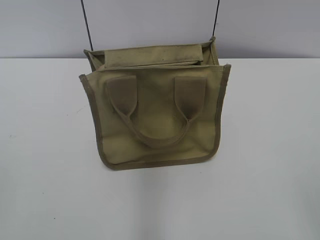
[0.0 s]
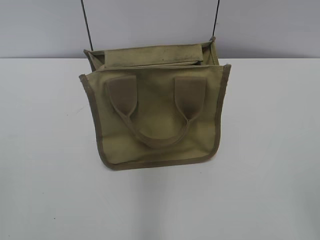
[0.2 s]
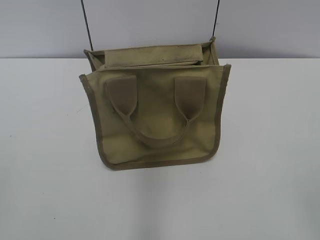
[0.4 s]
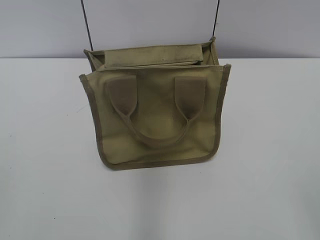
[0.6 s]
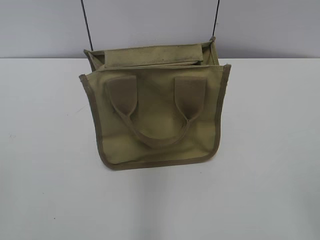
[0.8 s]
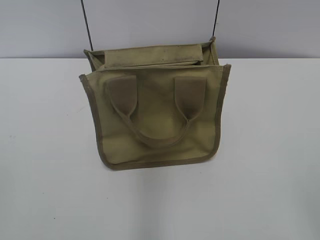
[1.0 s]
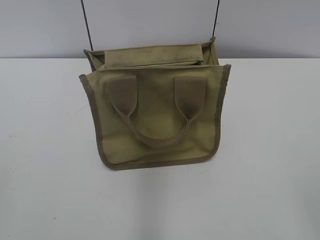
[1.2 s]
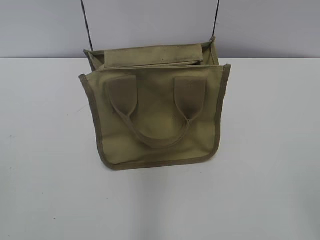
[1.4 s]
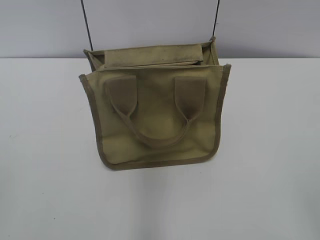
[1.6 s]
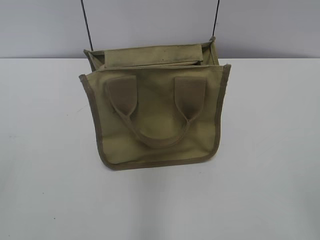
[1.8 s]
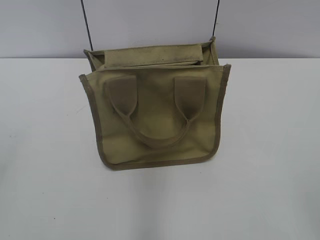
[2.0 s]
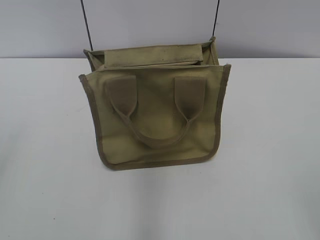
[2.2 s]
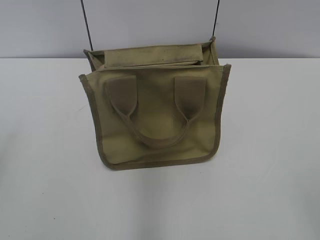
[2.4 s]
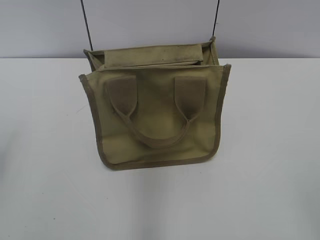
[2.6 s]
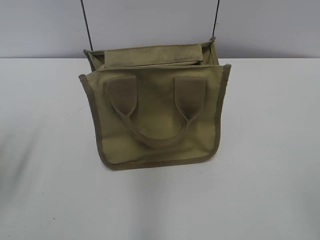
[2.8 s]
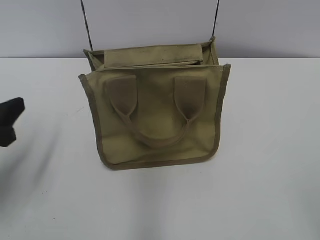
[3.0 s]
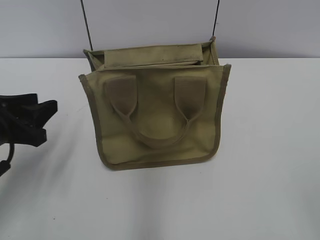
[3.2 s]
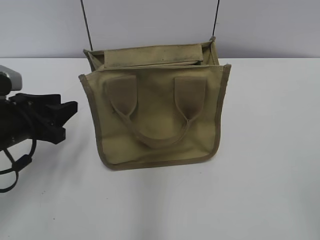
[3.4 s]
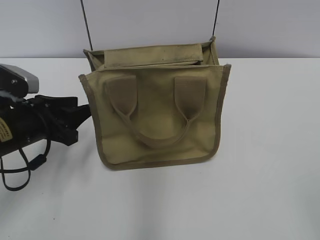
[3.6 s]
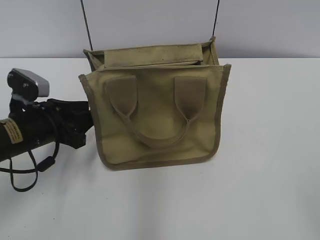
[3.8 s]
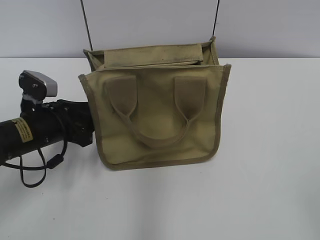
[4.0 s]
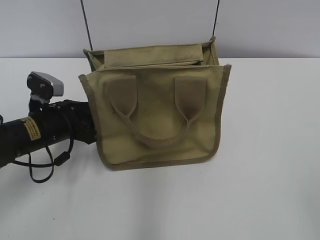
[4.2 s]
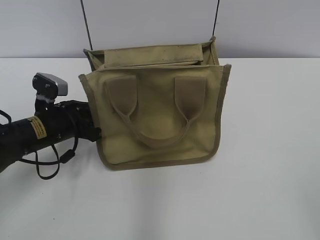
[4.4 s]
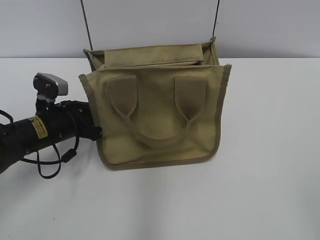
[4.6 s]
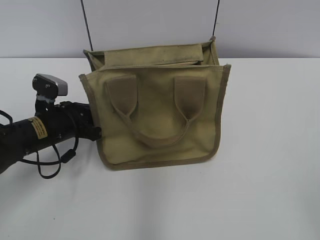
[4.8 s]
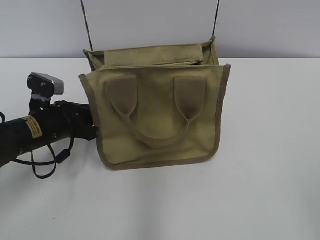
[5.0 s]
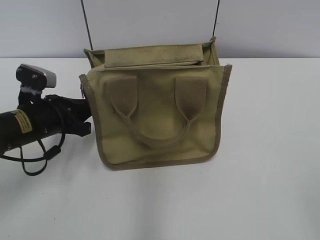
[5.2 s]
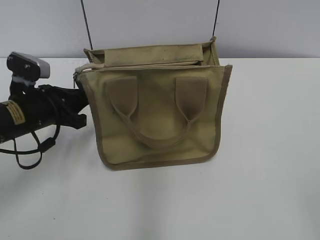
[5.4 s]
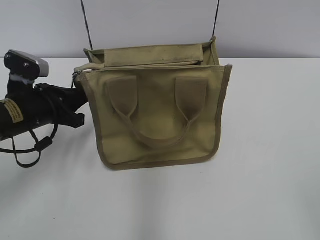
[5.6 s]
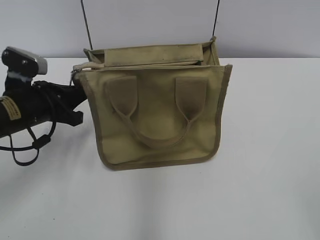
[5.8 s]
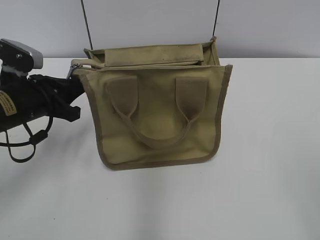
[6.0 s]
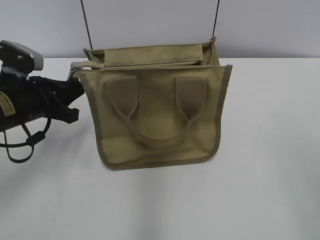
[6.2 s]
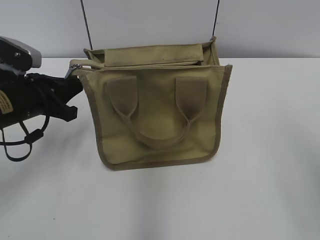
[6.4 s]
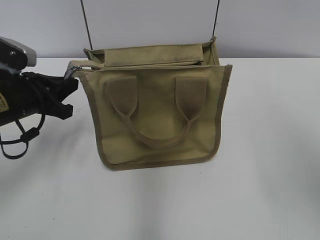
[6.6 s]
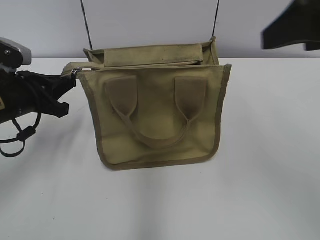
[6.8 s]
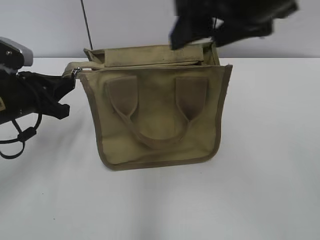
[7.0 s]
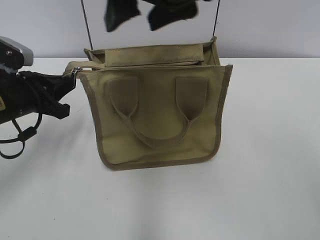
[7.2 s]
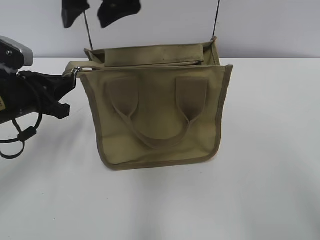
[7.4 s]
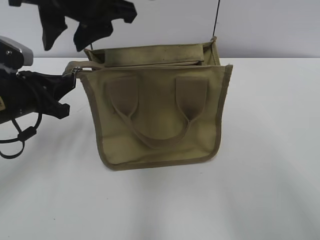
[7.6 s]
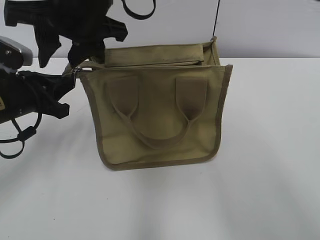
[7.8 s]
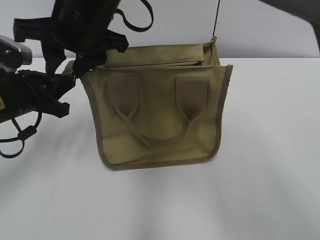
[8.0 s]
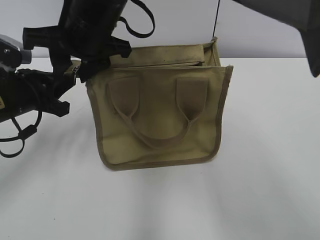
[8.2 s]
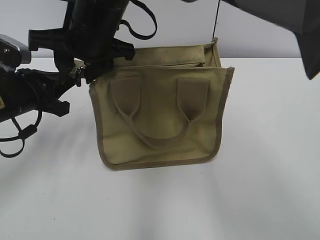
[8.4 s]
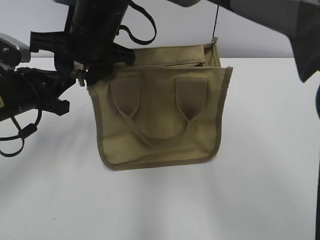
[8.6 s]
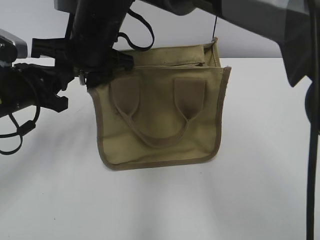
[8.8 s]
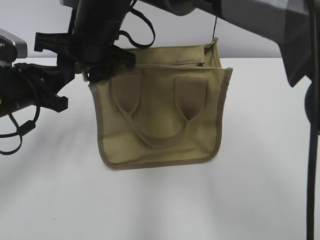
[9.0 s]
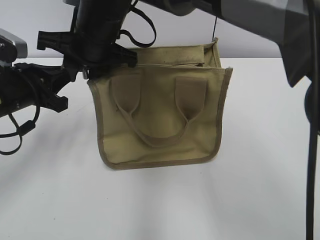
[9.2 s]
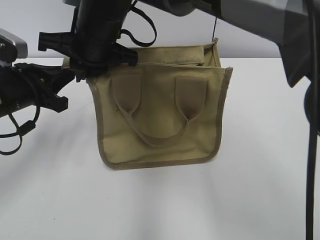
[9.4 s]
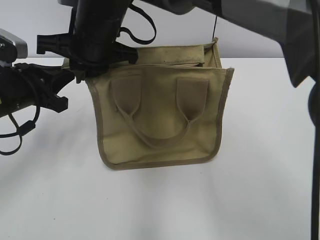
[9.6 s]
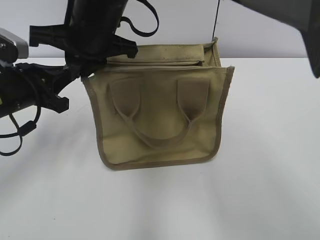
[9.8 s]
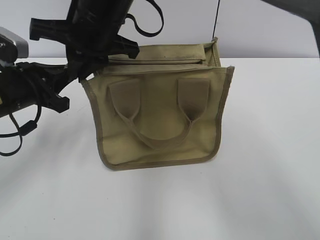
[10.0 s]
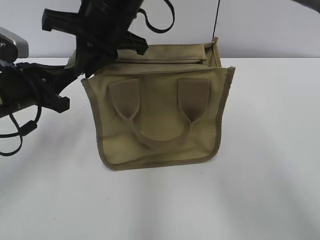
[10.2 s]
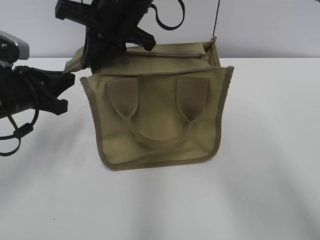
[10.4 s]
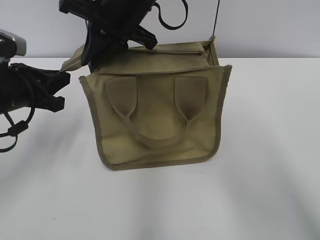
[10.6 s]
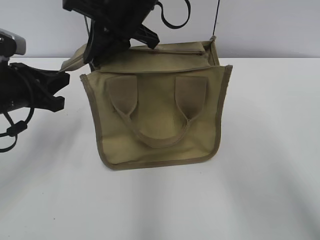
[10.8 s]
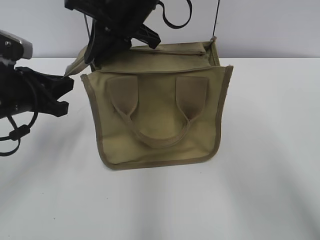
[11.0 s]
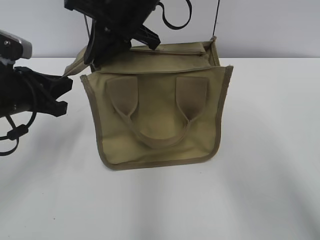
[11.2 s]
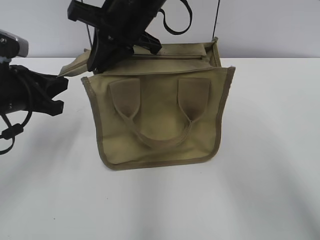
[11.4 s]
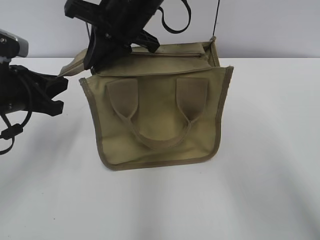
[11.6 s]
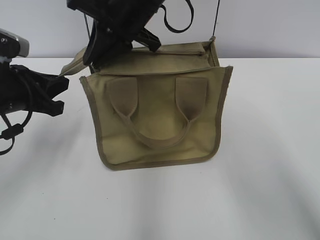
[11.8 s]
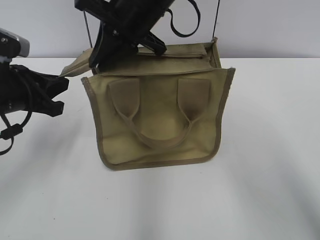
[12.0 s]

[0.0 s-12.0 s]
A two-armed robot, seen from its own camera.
1.6 to 3.0 s: The left gripper moves forward and downward, some 20 cm.
3.0 to 4.4 s: The left gripper goes roughly 15 cm forward, downward and to the right.
4.4 to 6.0 s: The left gripper is displaced upward by roughly 5 cm, and closes up.
6.0 to 7.6 s: The right gripper travels to the left and forward by about 50 cm, and closes.
7.6 to 9.0 s: The right gripper is displaced downward by some 10 cm.
9.0 to 10.4 s: The right gripper changes place by approximately 5 cm, and closes its fingers.
10.4 to 12.0 s: The grippers stay close to where they were, moving slightly.

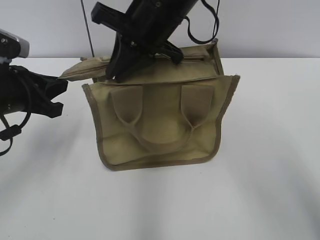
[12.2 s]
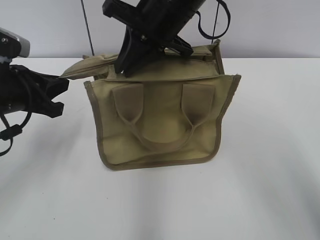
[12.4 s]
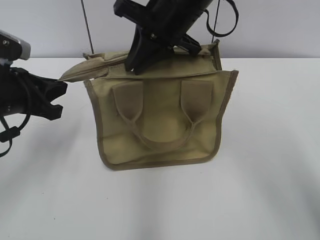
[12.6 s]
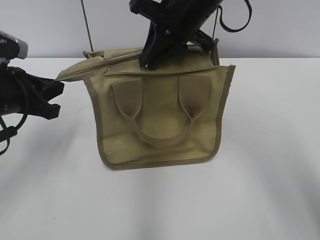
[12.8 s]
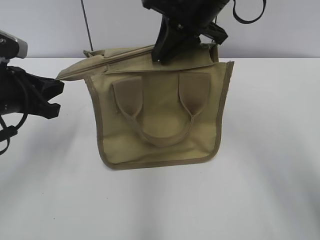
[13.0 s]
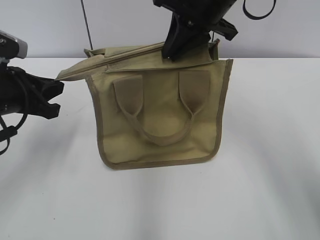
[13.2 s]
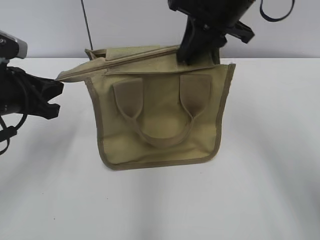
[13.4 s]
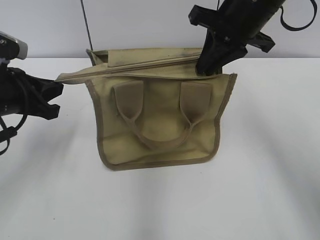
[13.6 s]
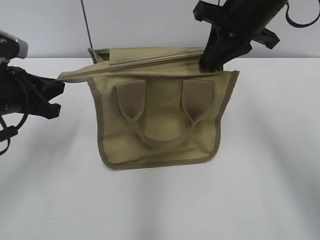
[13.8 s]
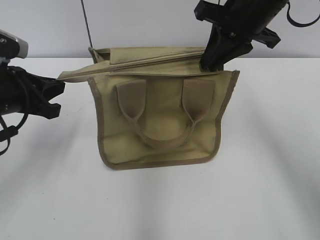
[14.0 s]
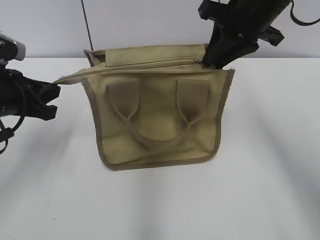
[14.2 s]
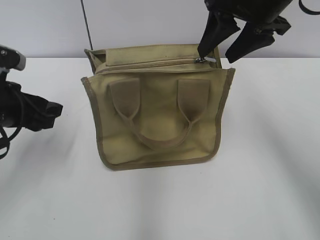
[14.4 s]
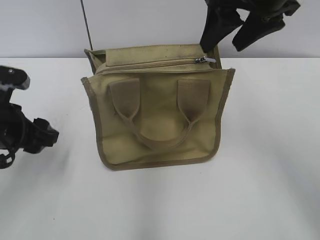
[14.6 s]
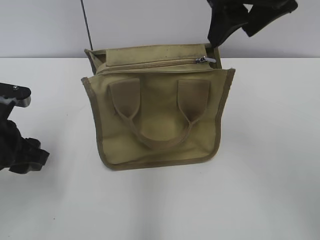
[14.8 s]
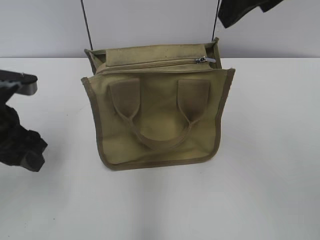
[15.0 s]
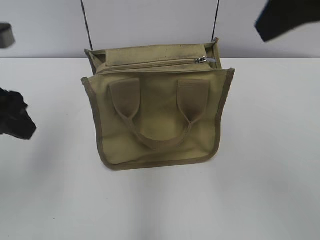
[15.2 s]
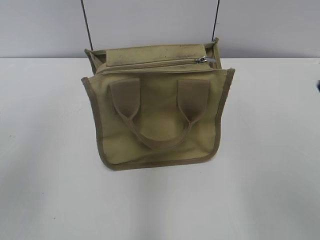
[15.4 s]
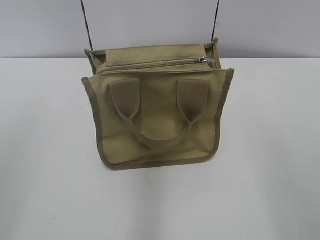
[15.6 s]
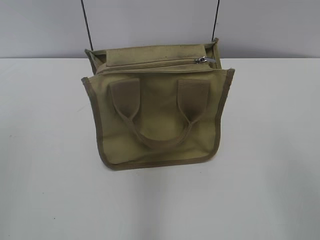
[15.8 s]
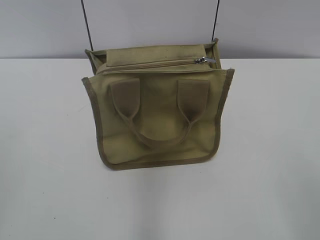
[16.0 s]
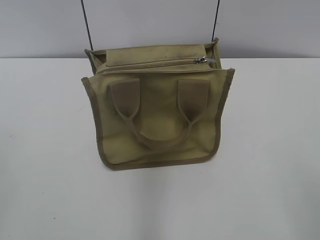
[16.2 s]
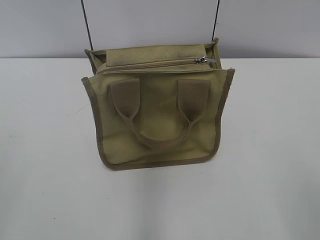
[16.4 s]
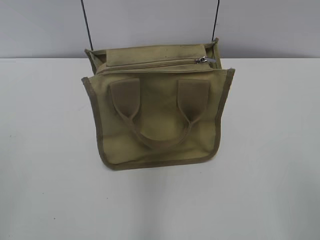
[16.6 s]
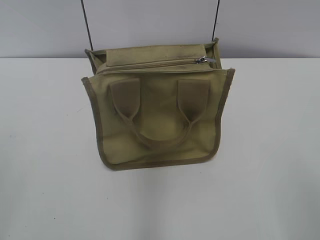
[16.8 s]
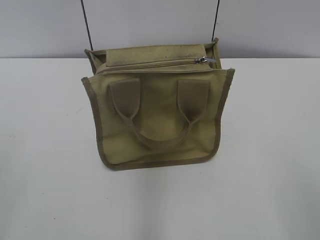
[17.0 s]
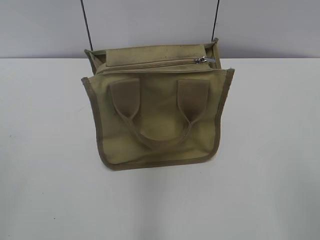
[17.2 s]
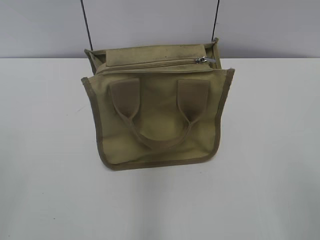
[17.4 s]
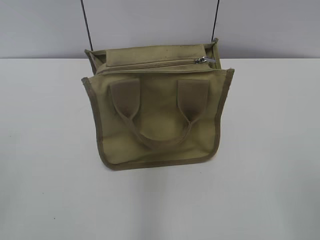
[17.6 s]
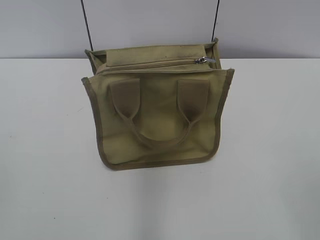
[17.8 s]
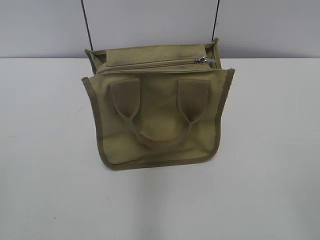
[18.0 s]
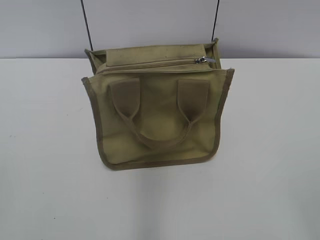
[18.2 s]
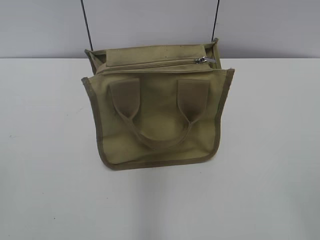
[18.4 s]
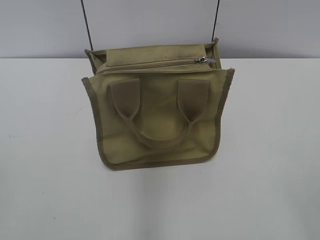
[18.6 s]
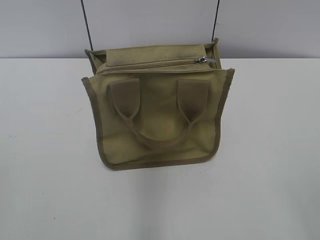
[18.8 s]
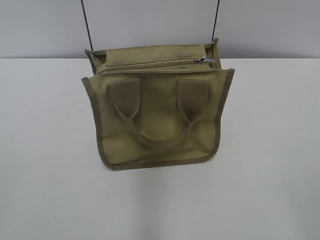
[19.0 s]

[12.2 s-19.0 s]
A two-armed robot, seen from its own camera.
Step, 12.2 to 14.2 s: Zip up the bag with your right hand.
12.2 to 13.6 s: The right gripper goes roughly 10 cm to the right.
13.6 to 15.0 s: The right gripper moves upward and backward, roughly 15 cm, and opens up, while the left gripper opens its fingers.
15.0 to 16.2 s: The right gripper is displaced backward, to the right and downward by about 30 cm, while the left gripper heads backward and to the left, covering about 25 cm.

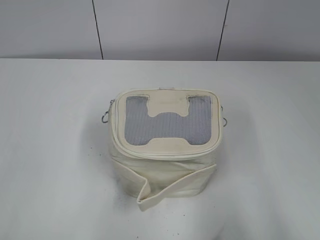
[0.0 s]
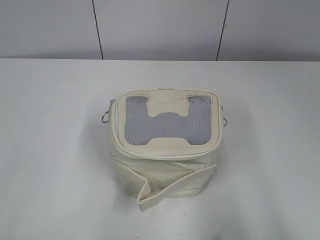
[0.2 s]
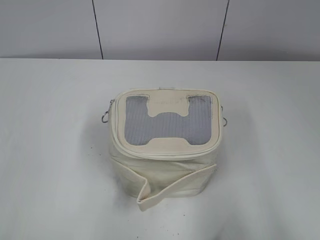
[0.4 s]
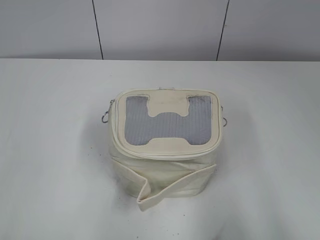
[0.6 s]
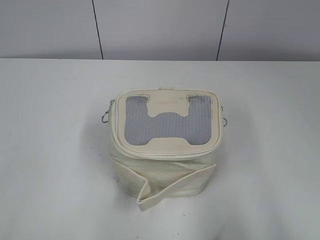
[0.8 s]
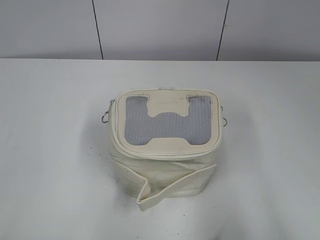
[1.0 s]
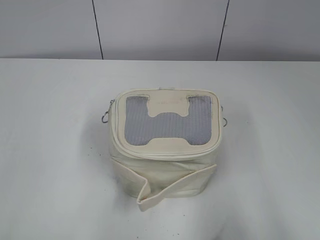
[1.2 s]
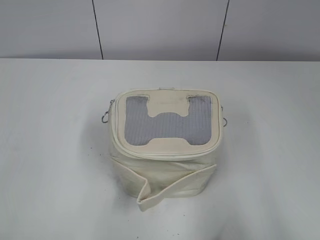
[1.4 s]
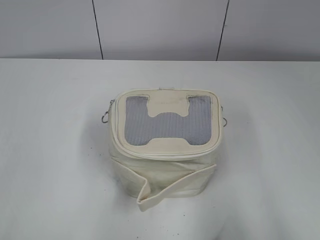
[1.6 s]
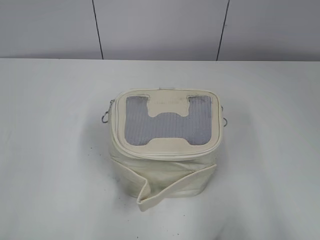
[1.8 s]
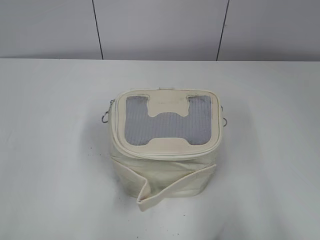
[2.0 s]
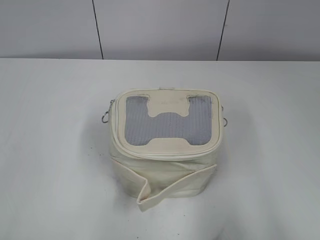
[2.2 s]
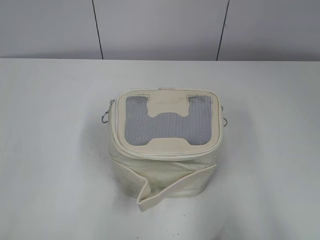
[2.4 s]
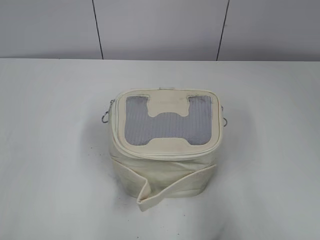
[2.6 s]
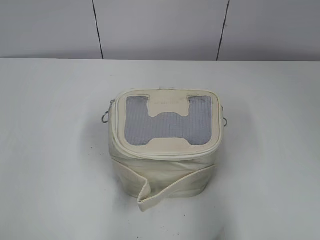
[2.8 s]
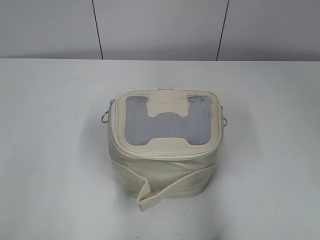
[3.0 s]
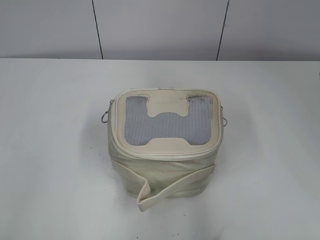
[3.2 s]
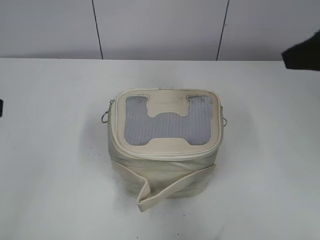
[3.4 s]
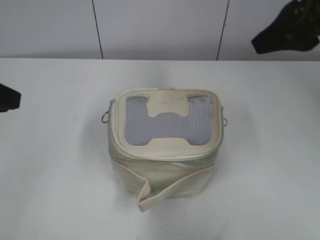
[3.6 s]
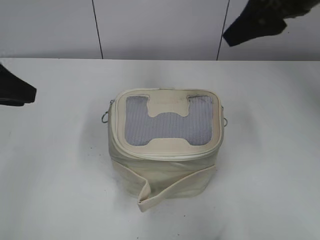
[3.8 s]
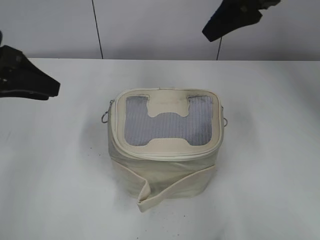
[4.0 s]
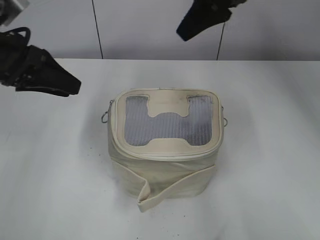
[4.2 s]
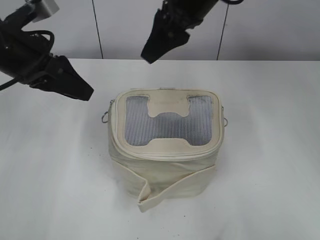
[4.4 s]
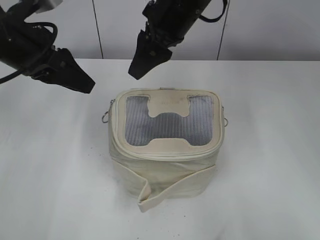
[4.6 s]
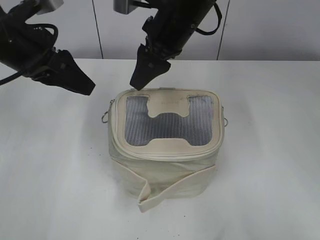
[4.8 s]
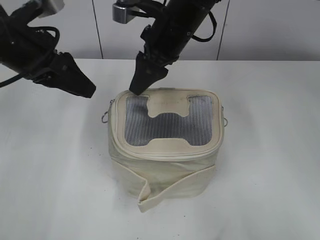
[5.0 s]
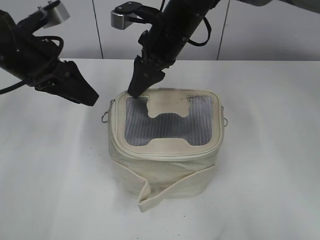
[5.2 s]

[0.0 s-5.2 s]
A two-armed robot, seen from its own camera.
1.8 to 3.4 s: The two grippers go about 15 cm forward.
3.4 to 5.2 s: The left gripper travels forward and to the right by some 20 cm; the right gripper moves to the left, forward and downward, approximately 30 cm.
